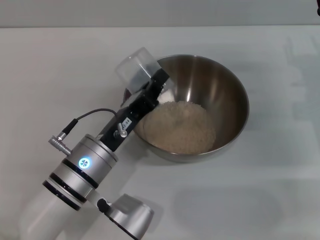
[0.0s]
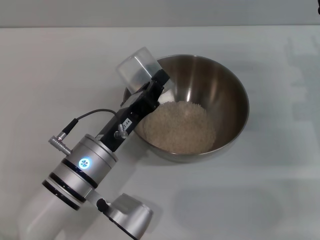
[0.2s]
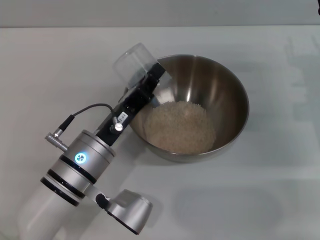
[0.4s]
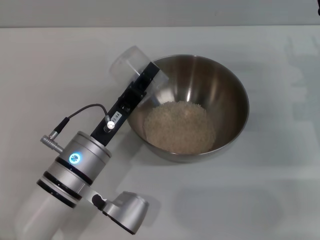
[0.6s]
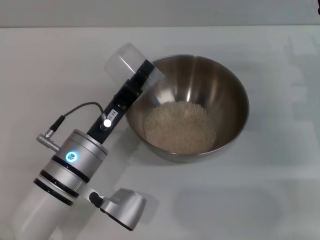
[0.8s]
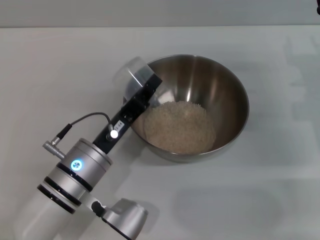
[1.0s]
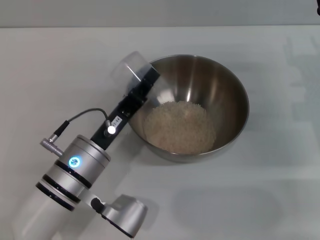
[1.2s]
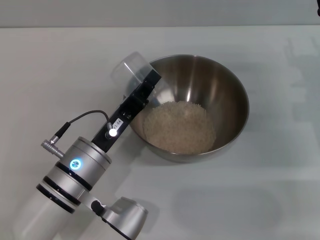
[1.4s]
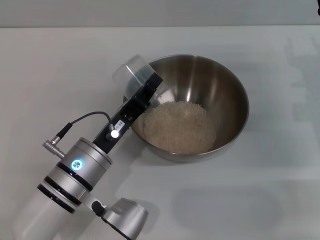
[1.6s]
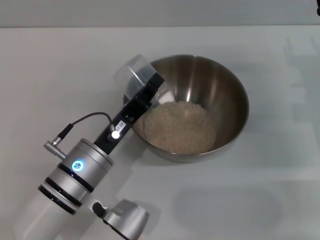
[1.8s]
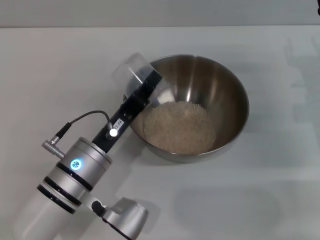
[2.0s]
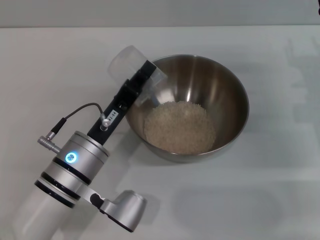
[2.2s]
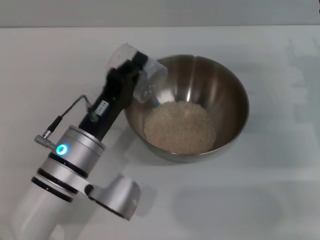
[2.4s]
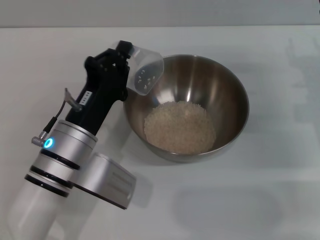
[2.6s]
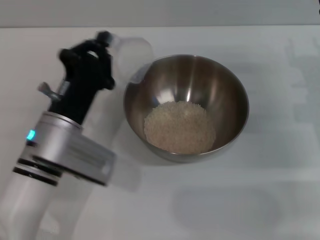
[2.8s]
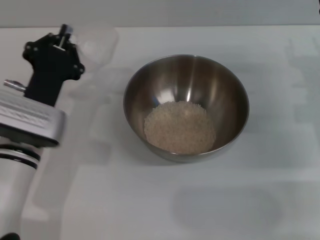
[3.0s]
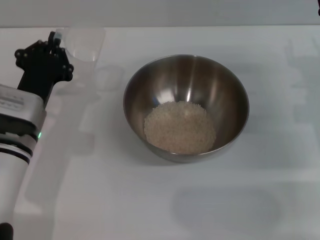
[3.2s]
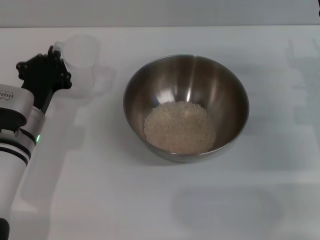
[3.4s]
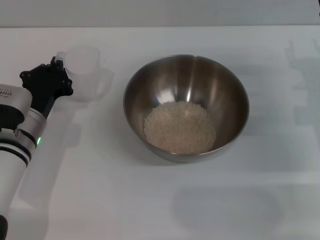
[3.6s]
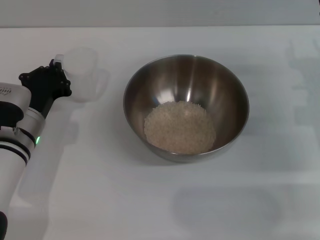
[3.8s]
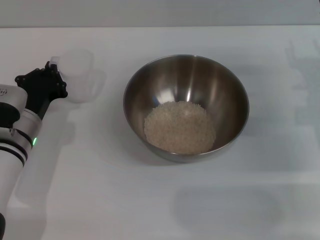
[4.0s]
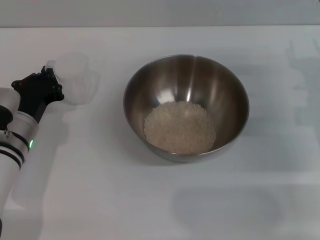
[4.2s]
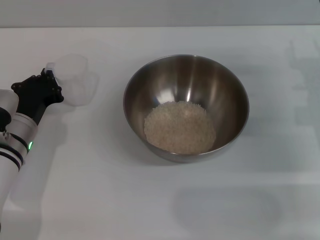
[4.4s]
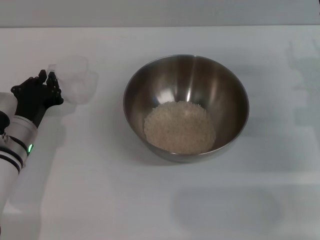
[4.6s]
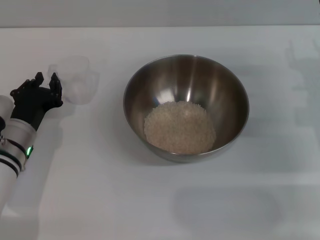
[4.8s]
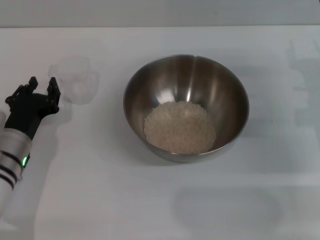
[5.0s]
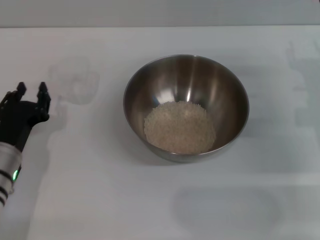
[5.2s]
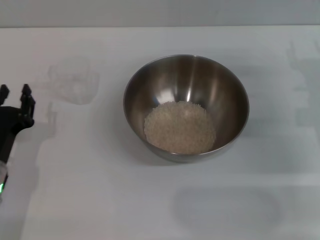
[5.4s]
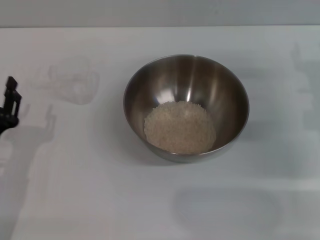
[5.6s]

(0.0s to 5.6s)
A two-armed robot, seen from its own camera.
Task of the whole recording: Place the bowl in the middle of the table with one hand and pour the rice from the grain cup into it with the other hand.
Step, 0.8s - 5.0s: Place the cup on the table with the left gripper.
0.0s - 1.4s: The grippers move only a little.
2.8s - 4.2s: The left gripper heads to the left, covering approximately 5 cm.
4.2s - 5.6s: The left gripper shifts approximately 10 cm backward, and opens.

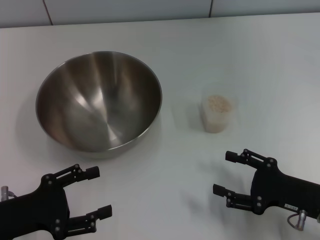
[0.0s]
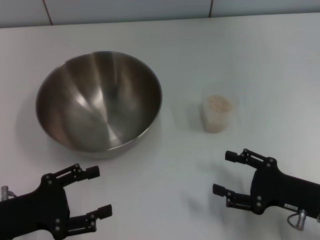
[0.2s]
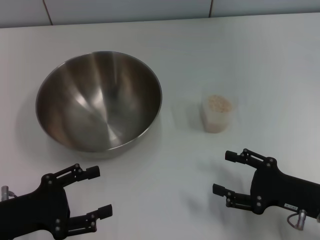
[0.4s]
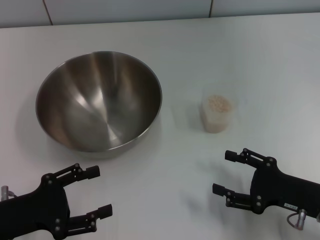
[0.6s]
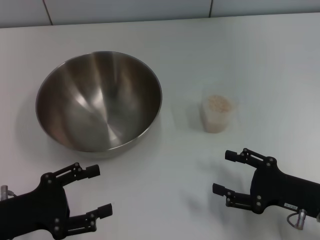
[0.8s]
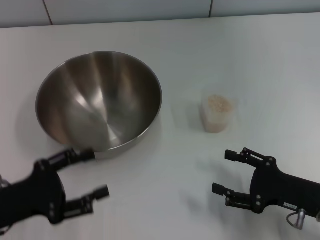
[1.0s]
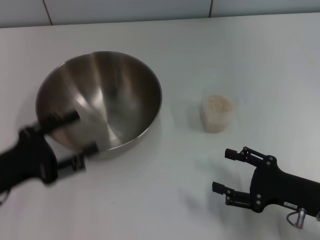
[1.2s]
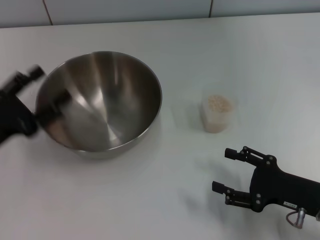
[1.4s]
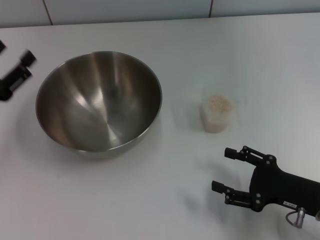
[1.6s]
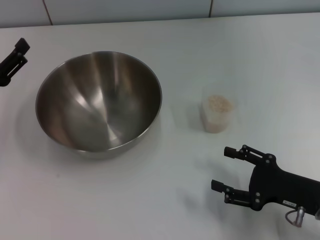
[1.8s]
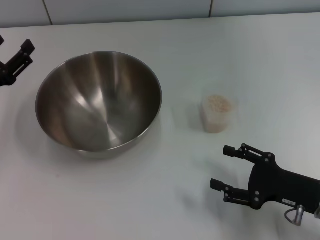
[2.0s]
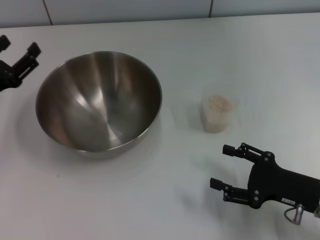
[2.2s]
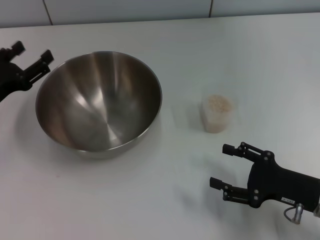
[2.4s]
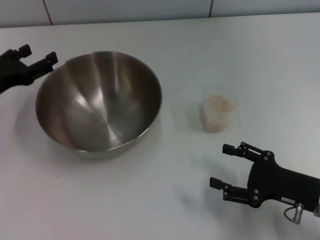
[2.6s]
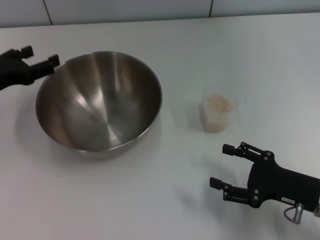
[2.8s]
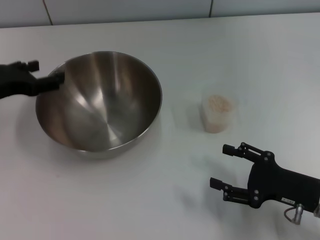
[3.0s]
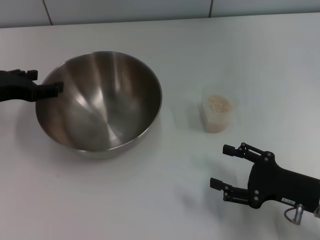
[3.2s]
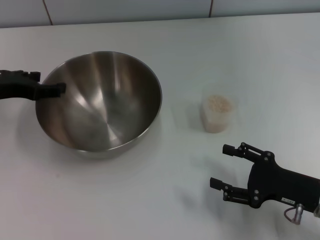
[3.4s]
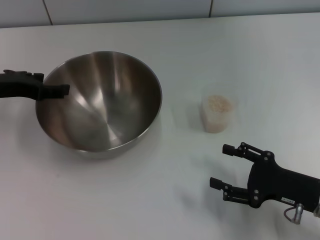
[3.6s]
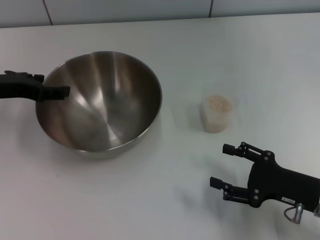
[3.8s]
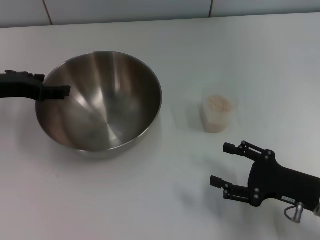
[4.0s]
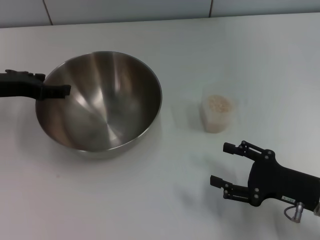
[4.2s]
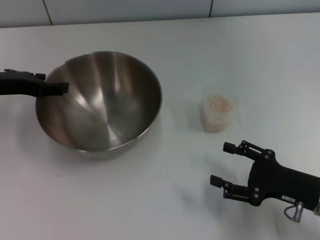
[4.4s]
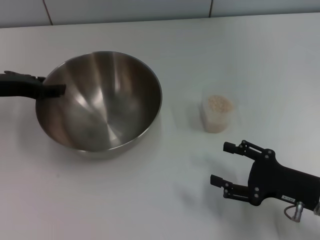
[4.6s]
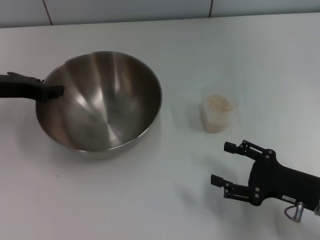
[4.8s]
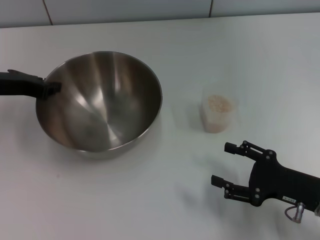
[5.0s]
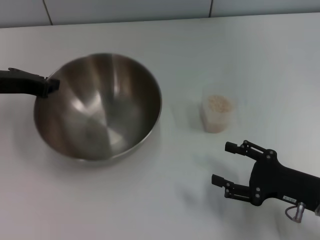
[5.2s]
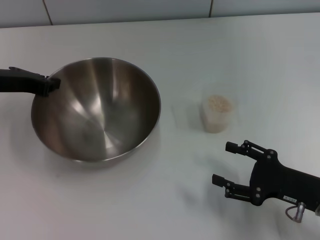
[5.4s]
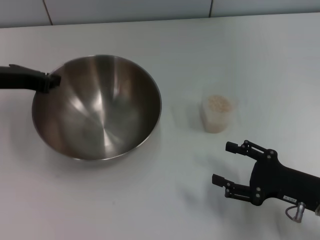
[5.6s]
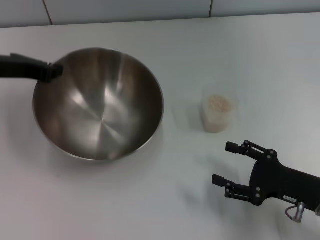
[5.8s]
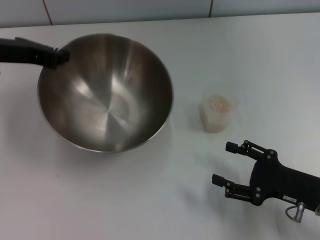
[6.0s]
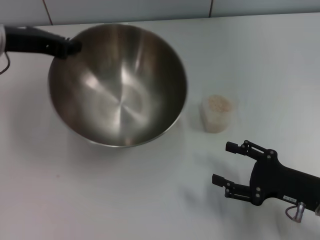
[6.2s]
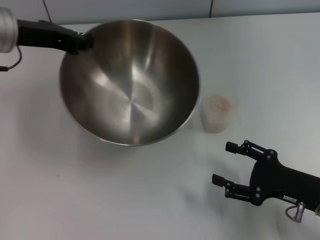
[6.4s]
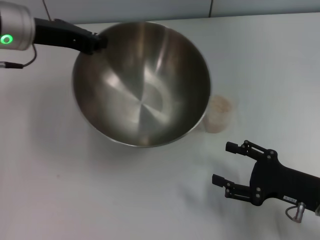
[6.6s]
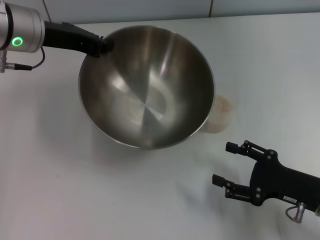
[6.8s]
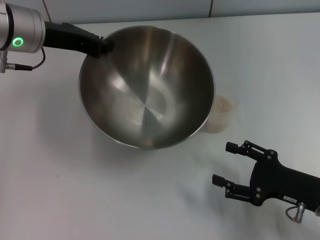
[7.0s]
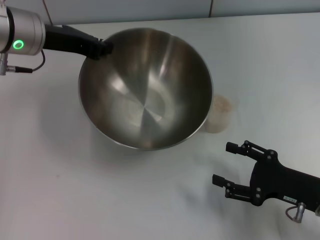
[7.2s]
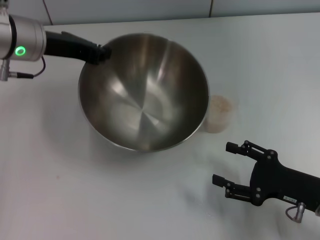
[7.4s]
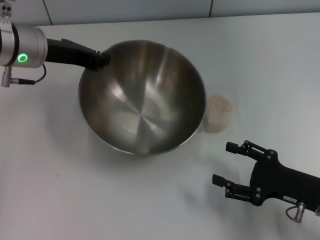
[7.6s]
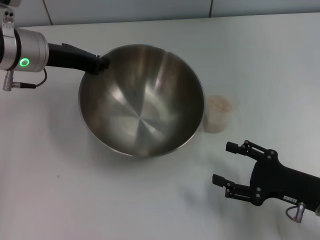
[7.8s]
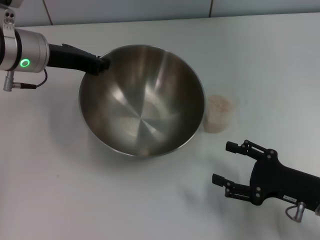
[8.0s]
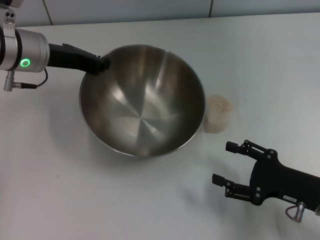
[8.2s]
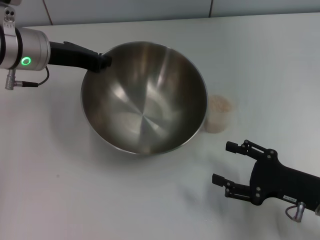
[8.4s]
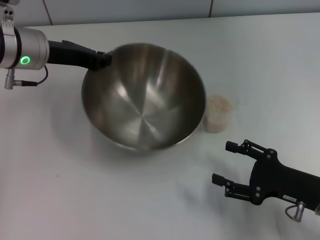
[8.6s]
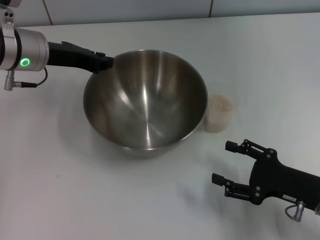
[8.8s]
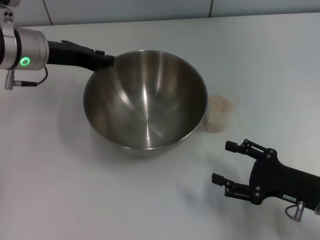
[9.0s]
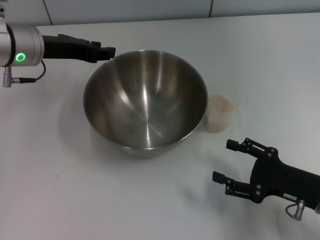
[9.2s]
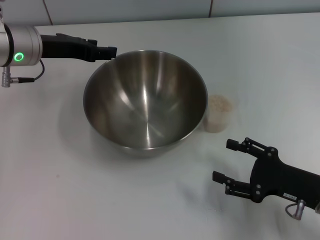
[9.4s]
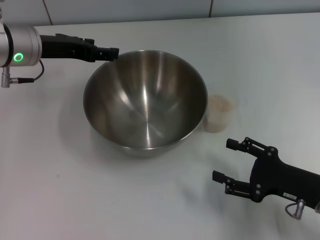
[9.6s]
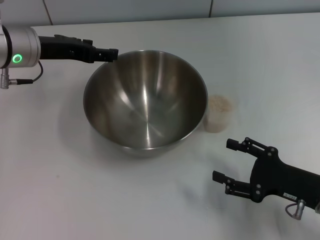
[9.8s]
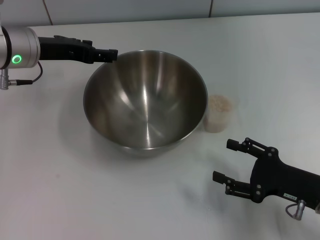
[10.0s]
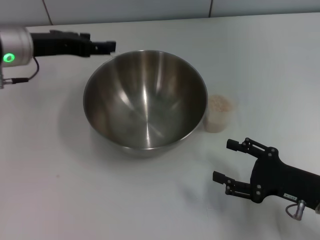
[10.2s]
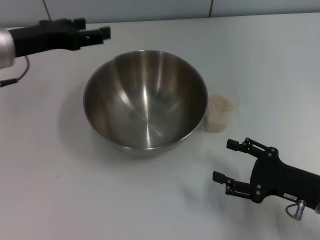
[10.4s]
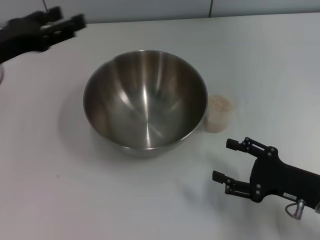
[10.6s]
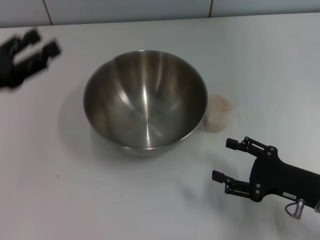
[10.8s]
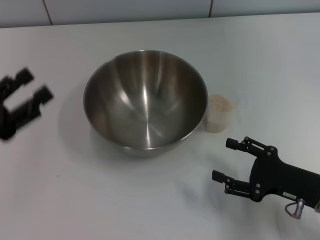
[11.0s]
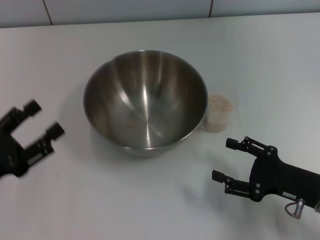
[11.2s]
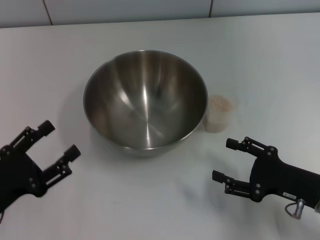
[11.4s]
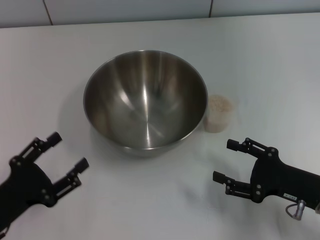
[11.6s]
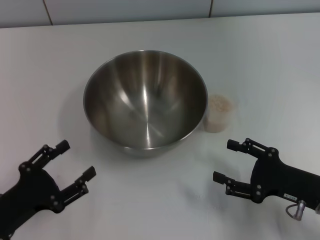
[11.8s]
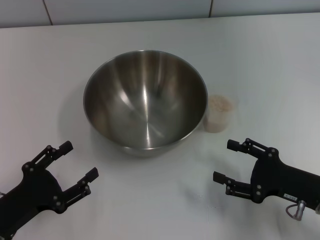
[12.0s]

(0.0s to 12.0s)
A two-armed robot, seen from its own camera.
Task of the whole recording: Place the bowl in the middle of the table with one hand and pour the rice from the grain cup into it with the other hand.
Step, 0.0s - 6.0s: Pick up the bowl with the left gripper.
Step, 6.2s - 10.2s: Place the bowl in the center of view with the left gripper.
0.0s - 1.6s: The left gripper goes roughly 5 cm forward.
1.6s - 3.0s: The left gripper heads forward, covering approximately 10 cm.
3.0s - 4.4s: The grippers stay close to where they were, moving slightly.
4.4s - 6.0s: The left gripper ends up approximately 5 cm from where it was, and closes.
6.0s - 7.6s: The left gripper moves to the right, approximately 5 cm.
7.6s - 9.0s: Neither gripper changes place.
9.0s - 10.4s: The left gripper shifts by roughly 5 cm, and opens its fingers.
10.4s - 12.0s: The left gripper travels backward and downward by roughly 25 cm.

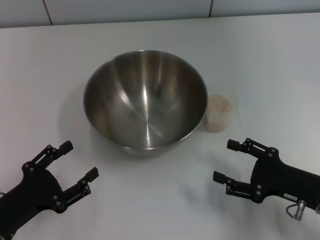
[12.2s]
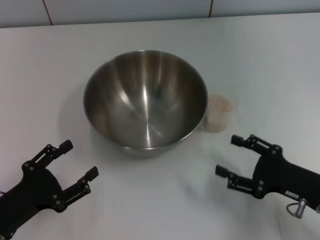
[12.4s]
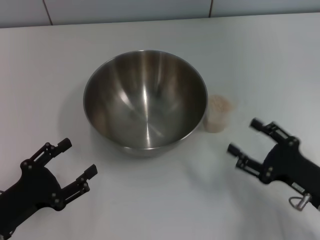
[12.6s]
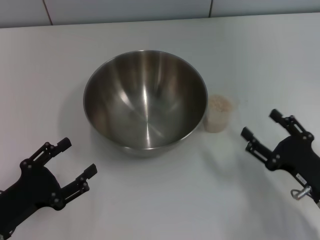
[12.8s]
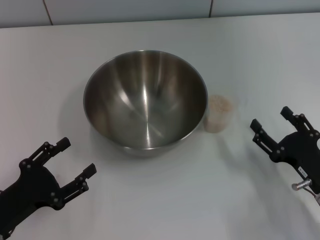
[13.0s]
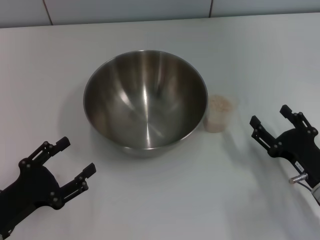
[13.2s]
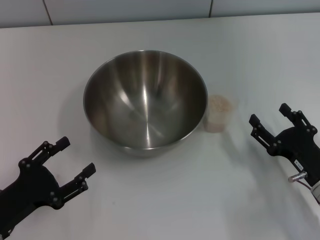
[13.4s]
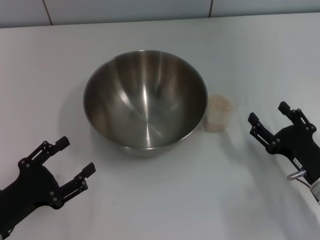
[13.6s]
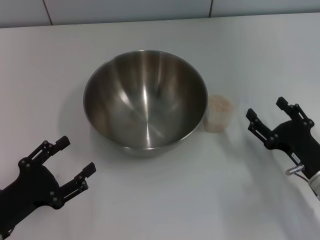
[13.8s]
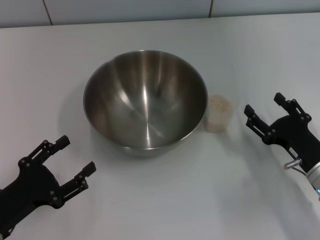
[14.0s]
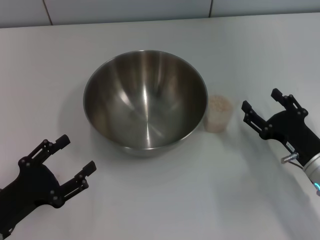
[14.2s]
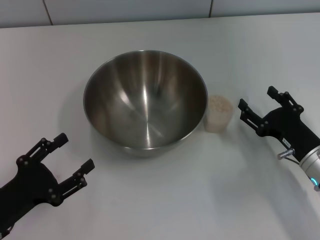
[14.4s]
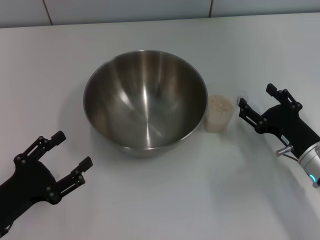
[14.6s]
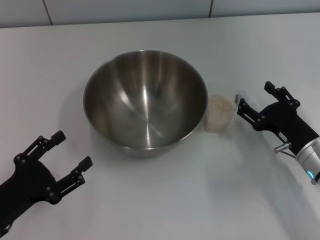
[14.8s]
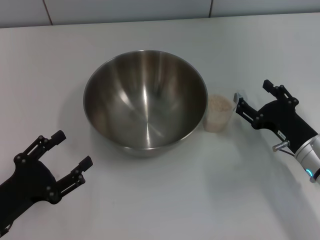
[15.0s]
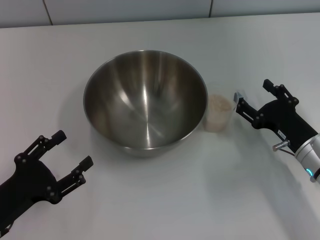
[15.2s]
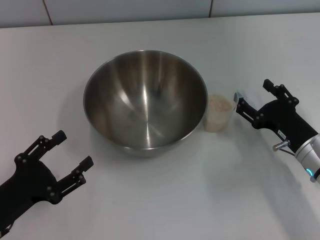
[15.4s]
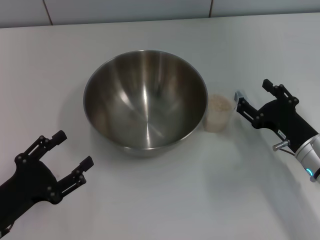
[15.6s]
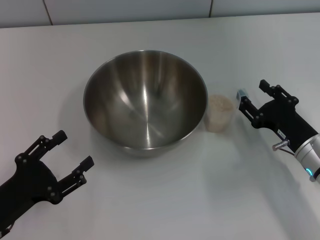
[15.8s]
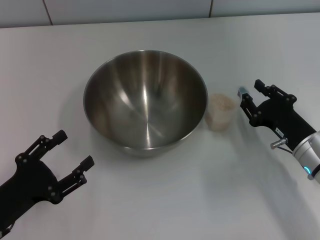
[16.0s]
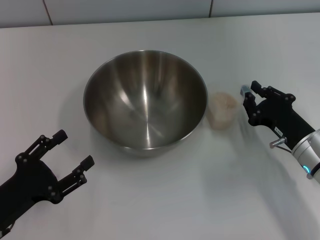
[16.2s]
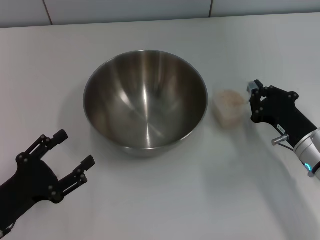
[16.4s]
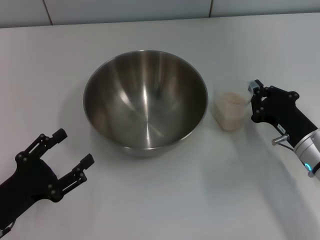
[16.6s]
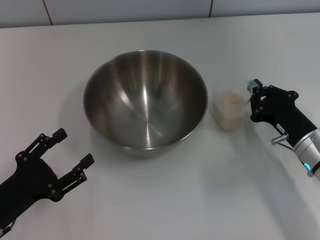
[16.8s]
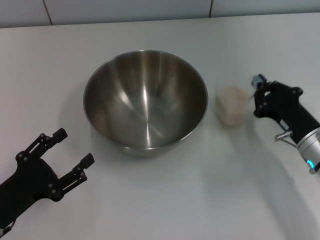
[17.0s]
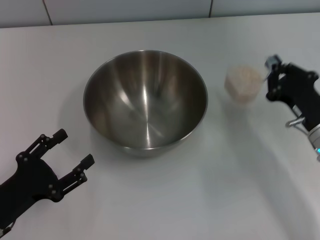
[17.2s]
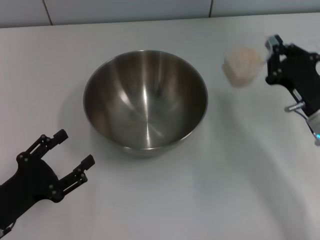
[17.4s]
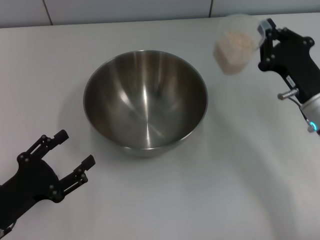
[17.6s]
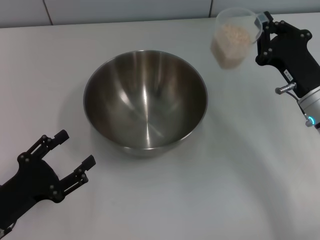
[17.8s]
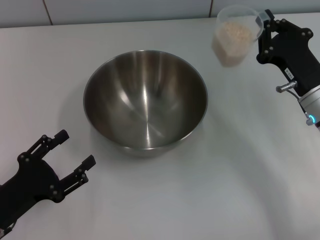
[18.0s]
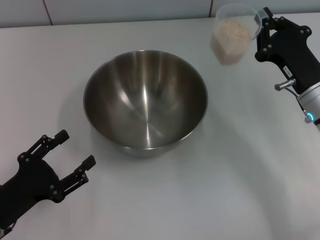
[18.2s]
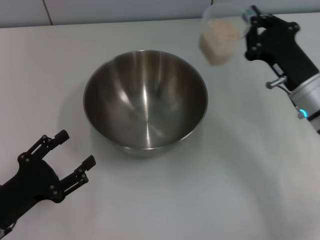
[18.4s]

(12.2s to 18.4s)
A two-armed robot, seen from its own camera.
Task of the whole recording: Place the bowl in the middle of the table with one hand and pour the rice from the grain cup into it with the other hand.
Step, 12.2s - 17.2s: Pick up the cup with rice in it with the right gripper.
13.8s - 15.4s: There are only small adjustments of the grippers.
15.4s - 16.8s: The right gripper closes up.
16.8s - 18.4s: The right gripper is displaced upward and forward by some 10 cm.
